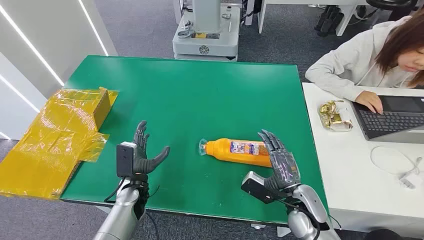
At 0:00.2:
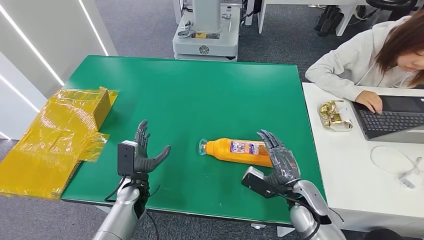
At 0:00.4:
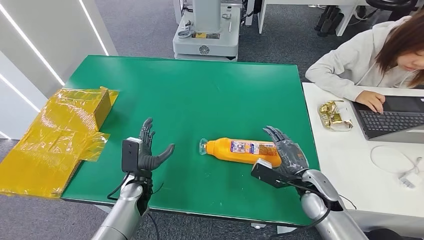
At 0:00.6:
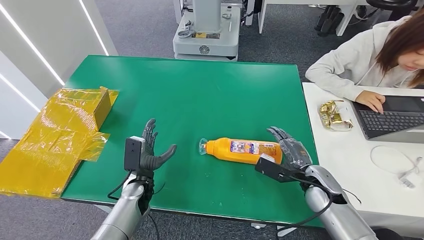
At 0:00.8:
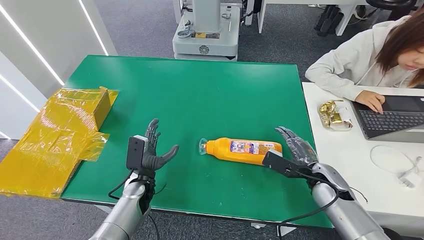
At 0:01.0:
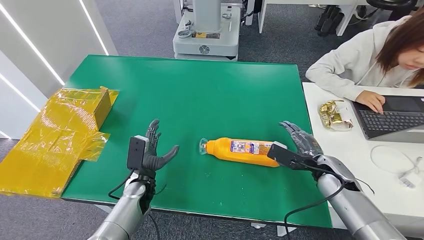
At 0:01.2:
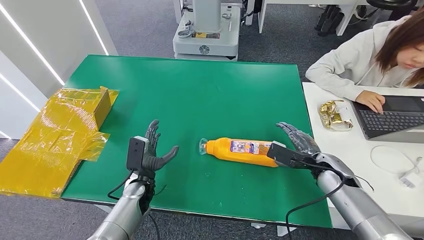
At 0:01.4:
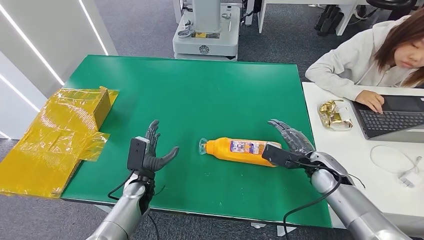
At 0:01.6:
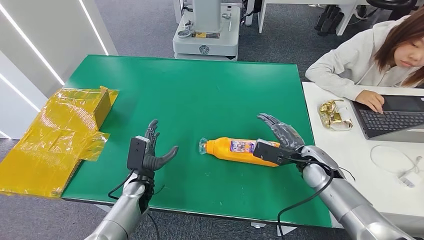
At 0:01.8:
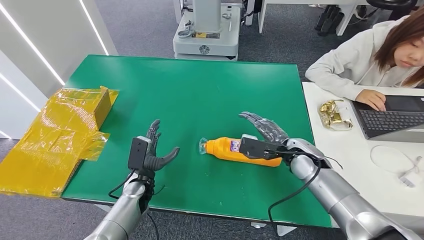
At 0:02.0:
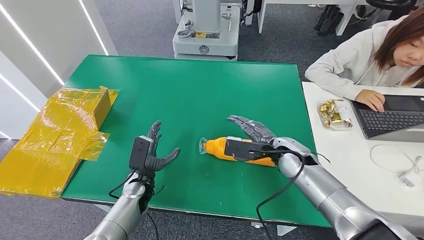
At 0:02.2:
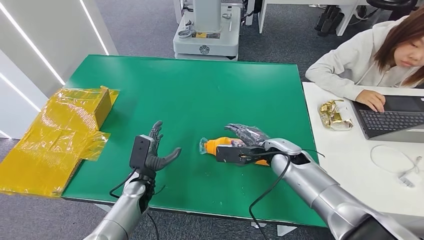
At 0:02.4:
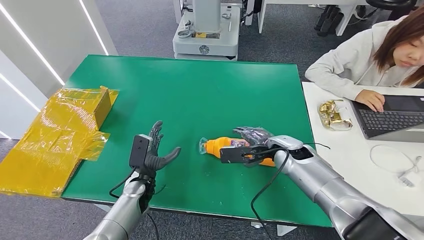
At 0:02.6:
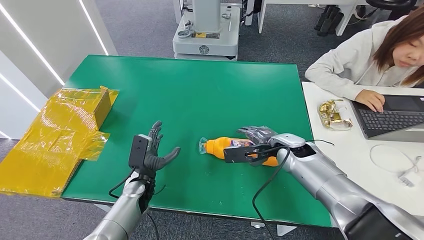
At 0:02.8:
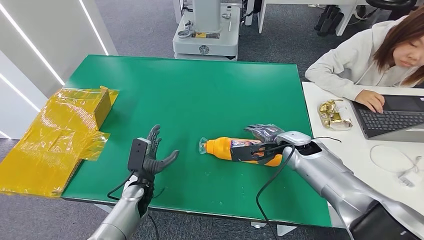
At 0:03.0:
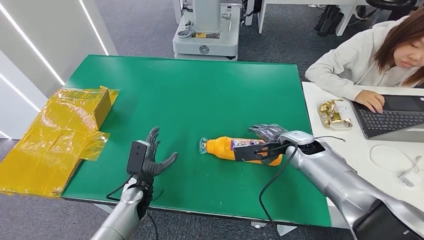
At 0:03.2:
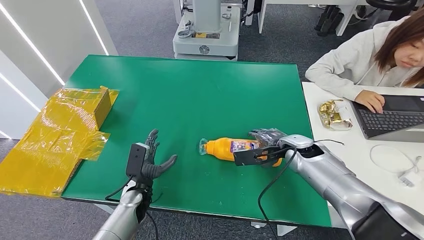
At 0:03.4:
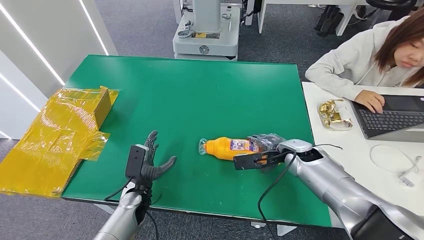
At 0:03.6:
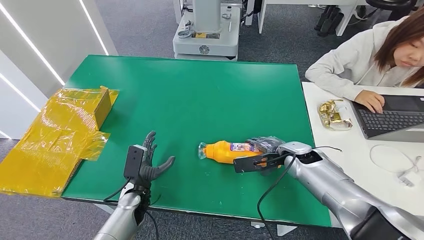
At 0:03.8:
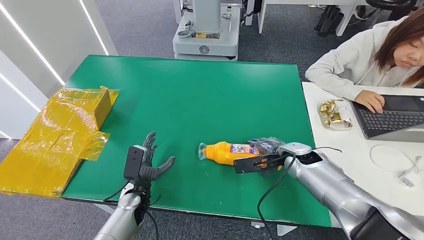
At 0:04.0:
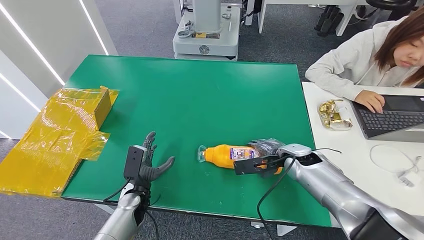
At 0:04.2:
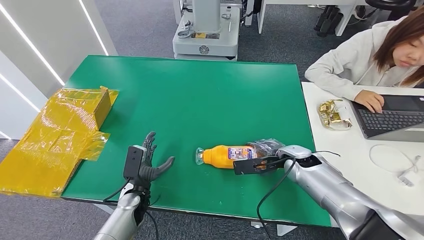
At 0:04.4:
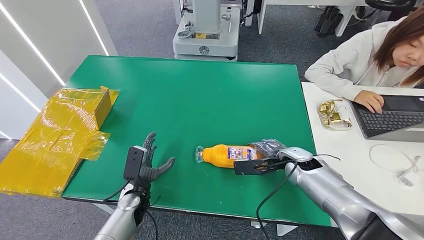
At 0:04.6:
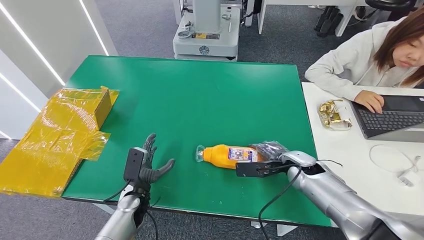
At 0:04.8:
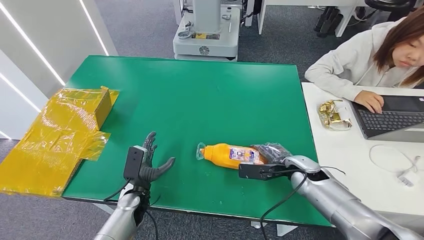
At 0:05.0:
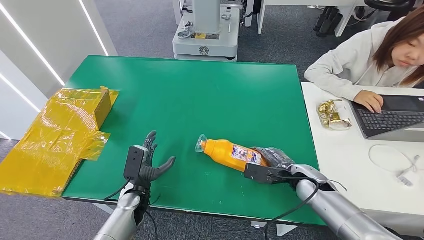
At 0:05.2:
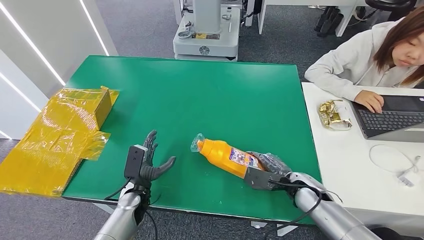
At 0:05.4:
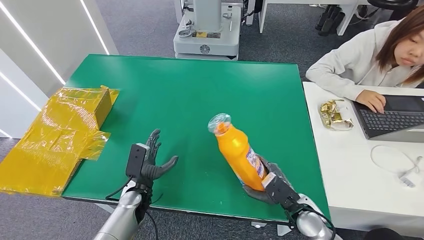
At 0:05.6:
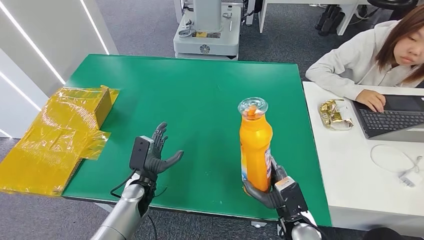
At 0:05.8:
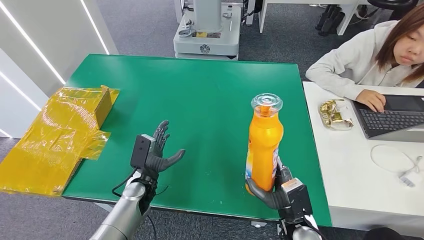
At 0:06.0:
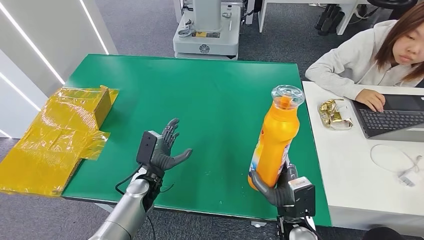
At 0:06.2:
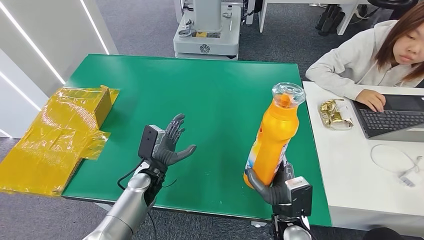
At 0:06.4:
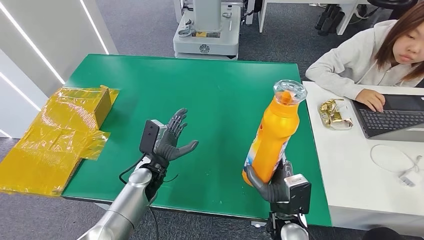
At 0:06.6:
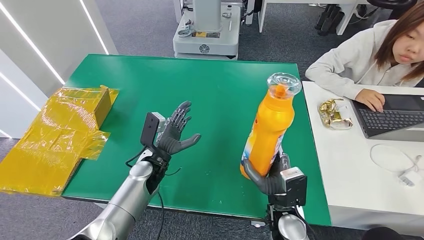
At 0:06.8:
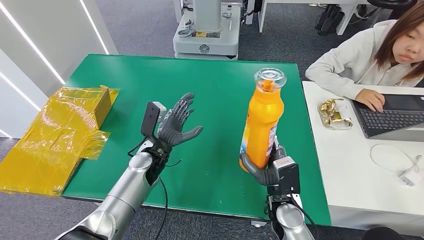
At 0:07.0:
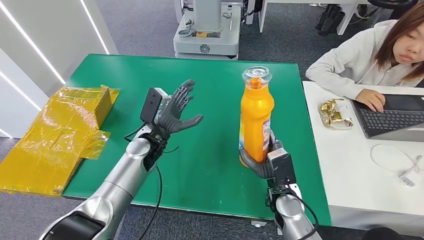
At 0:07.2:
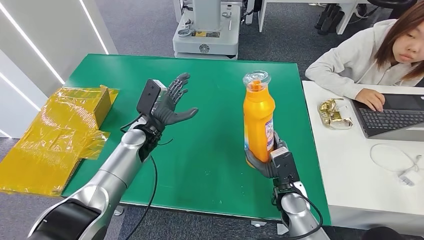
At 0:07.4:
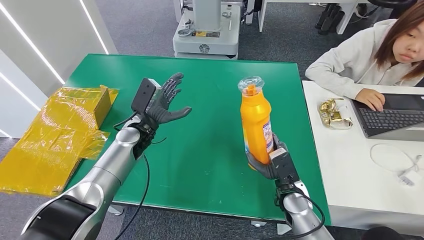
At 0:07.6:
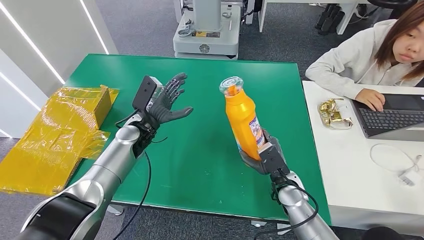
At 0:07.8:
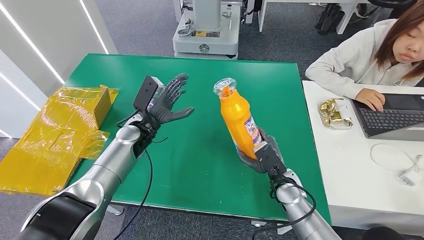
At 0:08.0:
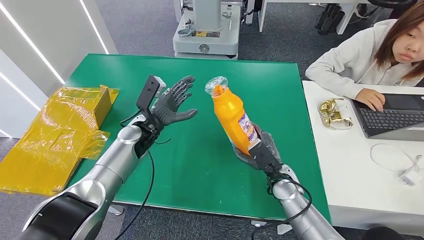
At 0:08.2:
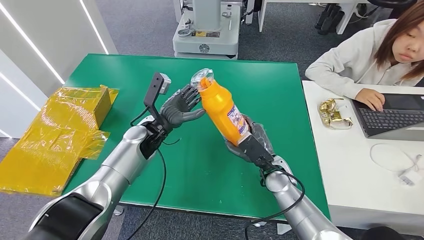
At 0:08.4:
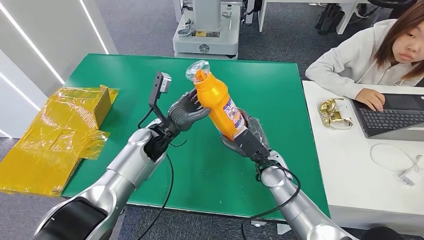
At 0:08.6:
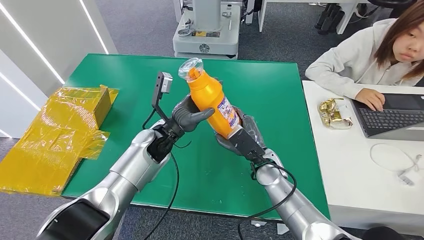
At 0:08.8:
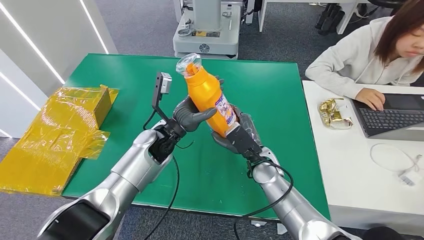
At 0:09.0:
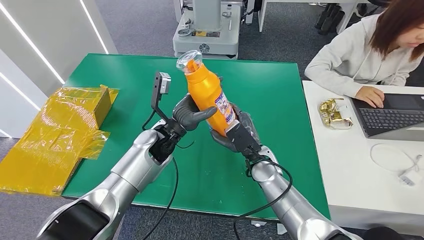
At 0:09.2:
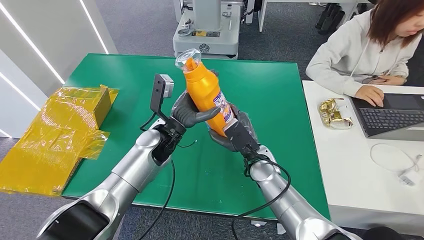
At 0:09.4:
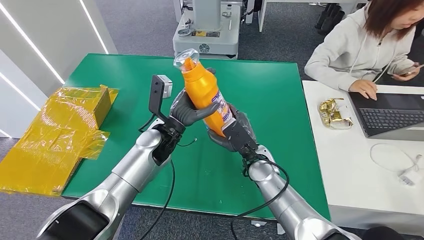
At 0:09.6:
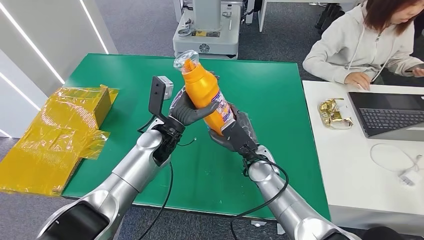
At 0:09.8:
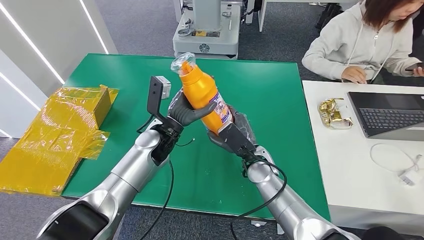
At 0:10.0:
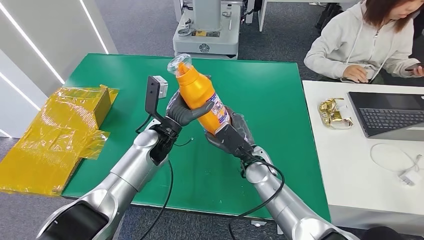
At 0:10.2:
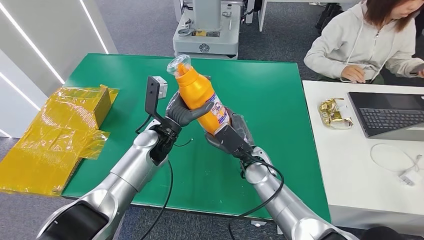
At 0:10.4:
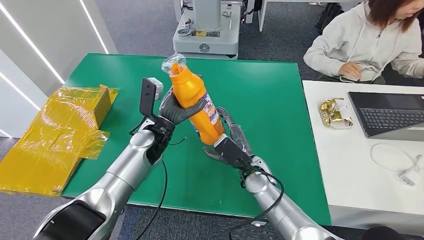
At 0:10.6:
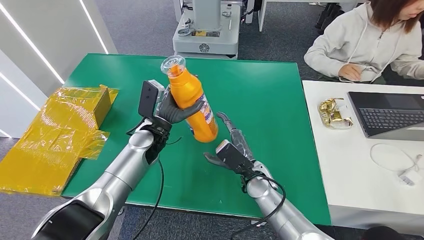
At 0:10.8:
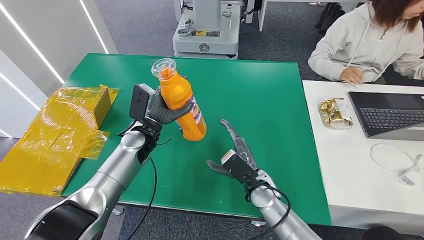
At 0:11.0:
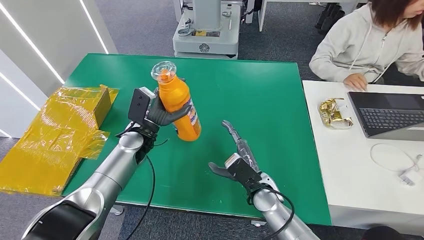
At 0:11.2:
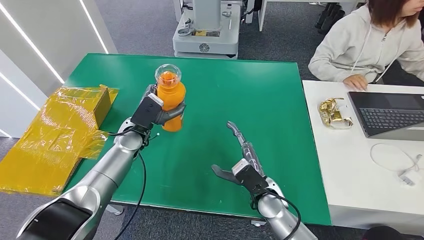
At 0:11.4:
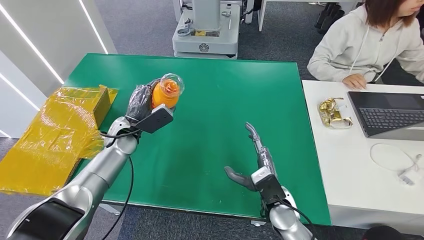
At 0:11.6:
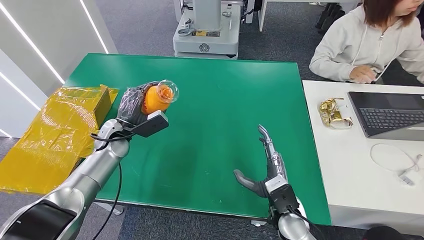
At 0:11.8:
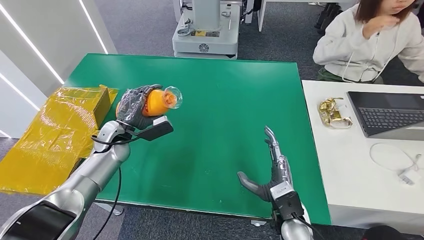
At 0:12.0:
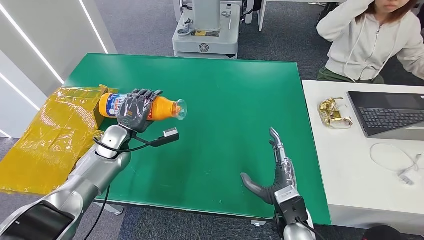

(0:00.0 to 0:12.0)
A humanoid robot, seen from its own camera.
Step, 0:00.0 - 0:05.2: Pick up the bottle from the table.
0:01.6 - 0:03.0: The right hand heads to the left, covering about 5 cm.
0:03.0 - 0:04.4: The right hand shifts by some 5 cm.
0:04.4 - 0:06.0: The right hand travels backward by some 15 cm, while the left hand moves about 5 cm.
0:06.0 - 0:07.6: The right hand is displaced forward by about 10 cm, while the left hand is displaced forward and upward by roughly 15 cm.

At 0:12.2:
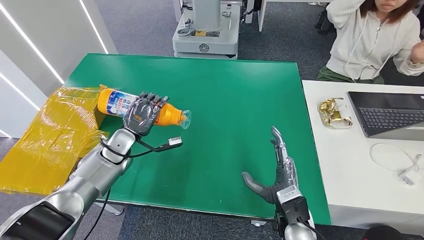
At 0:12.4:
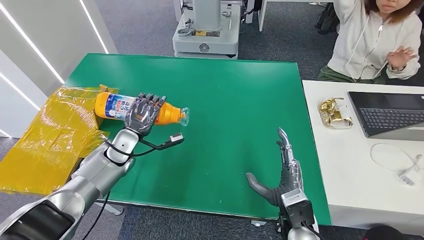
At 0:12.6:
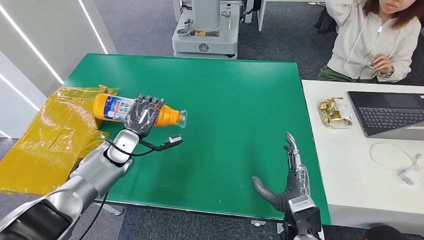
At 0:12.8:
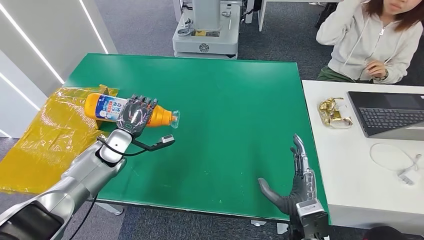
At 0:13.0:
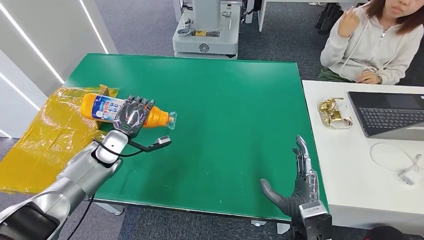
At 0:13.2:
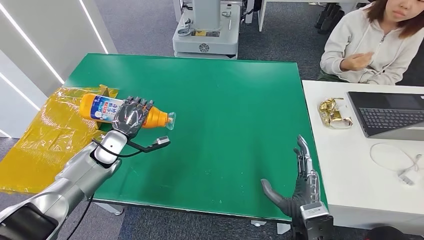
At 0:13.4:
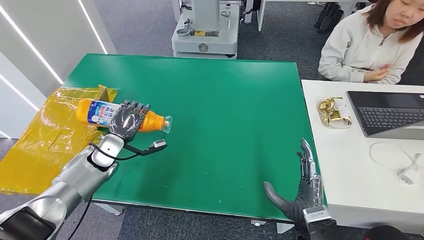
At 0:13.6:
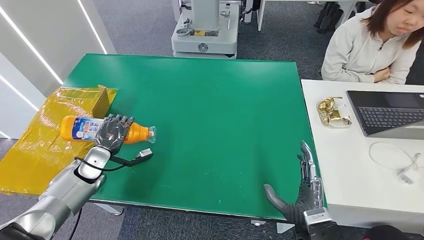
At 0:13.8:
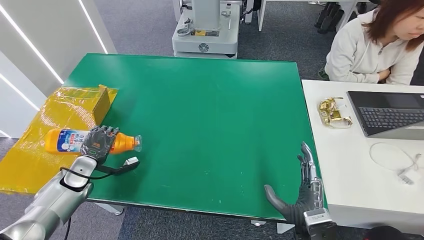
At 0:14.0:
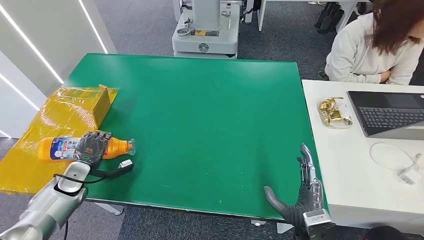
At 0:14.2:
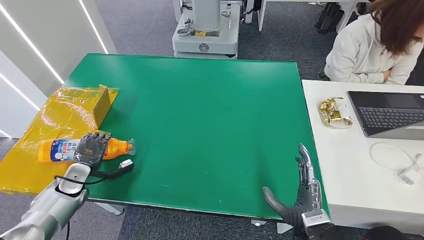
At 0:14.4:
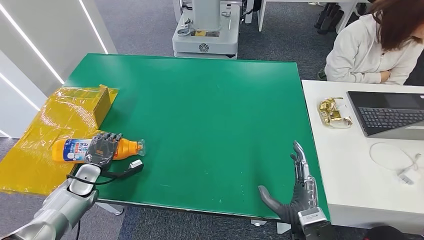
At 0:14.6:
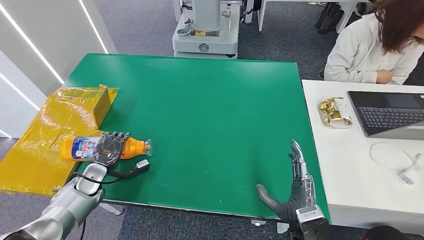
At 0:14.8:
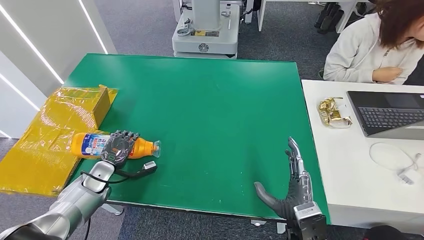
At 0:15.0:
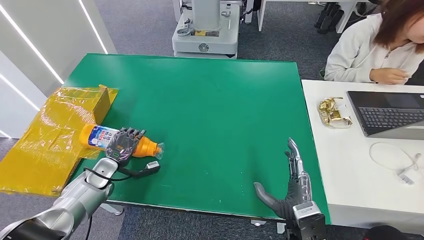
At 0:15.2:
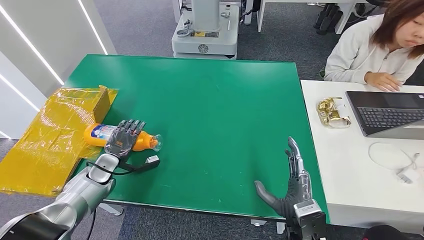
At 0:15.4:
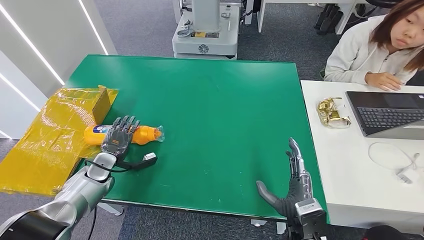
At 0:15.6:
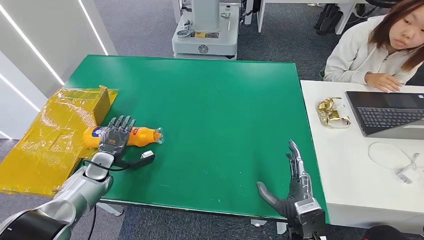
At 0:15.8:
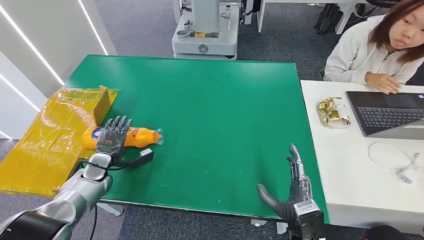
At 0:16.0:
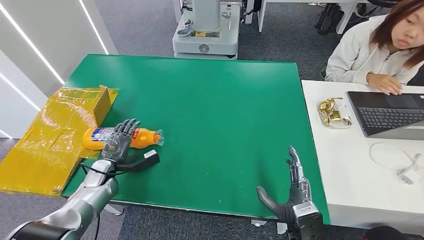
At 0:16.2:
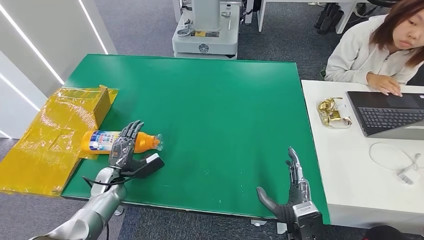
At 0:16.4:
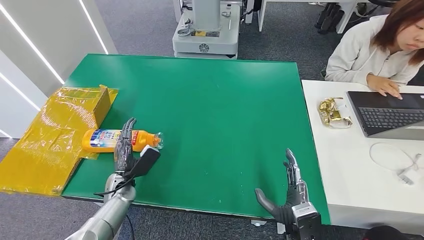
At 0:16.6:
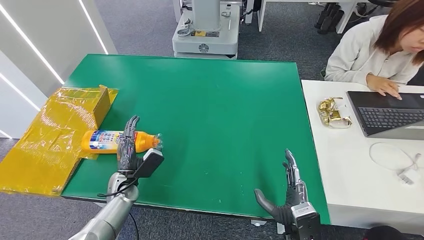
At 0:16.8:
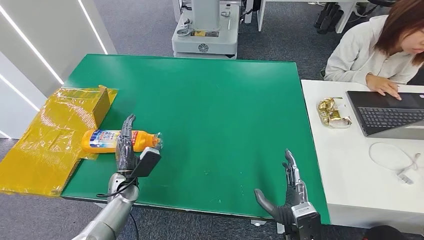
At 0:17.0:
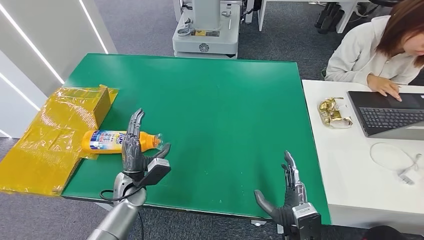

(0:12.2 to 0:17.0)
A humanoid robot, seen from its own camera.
Step, 0:12.2 - 0:17.0: Turn the bottle to the front side.
0:12.2 - 0:13.8: The left hand moves to the left, backward and downward, some 15 cm, while the right hand shifts some 5 cm backward.
0:13.8 - 0:15.4: The left hand ends up about 5 cm from where it was.
0:15.4 - 0:17.0: The left hand travels to the right by approximately 15 cm.
